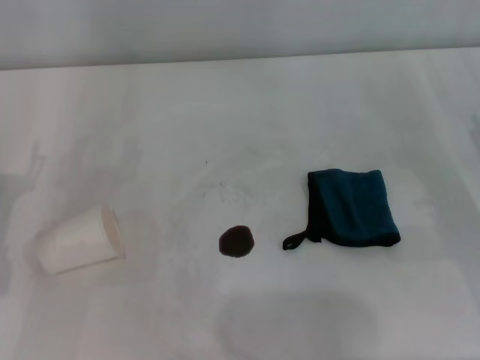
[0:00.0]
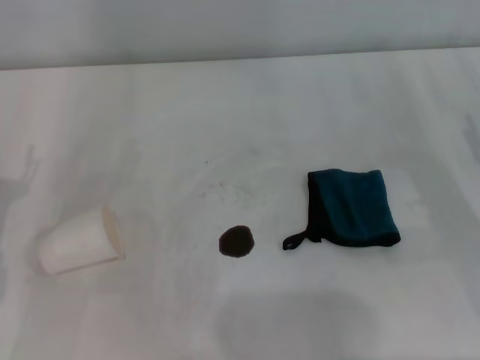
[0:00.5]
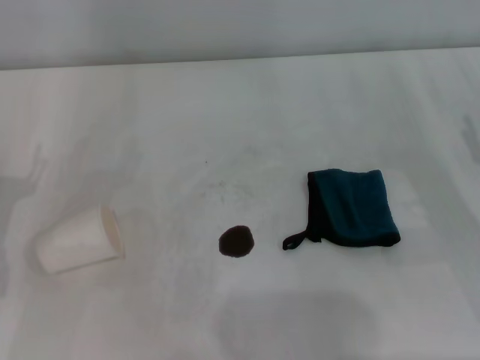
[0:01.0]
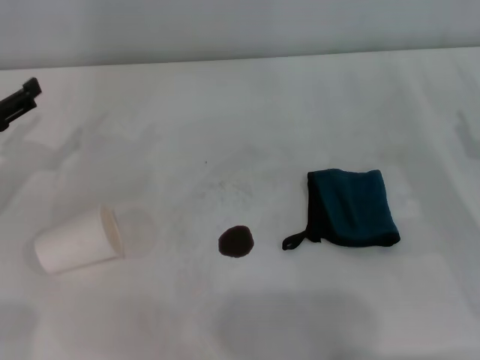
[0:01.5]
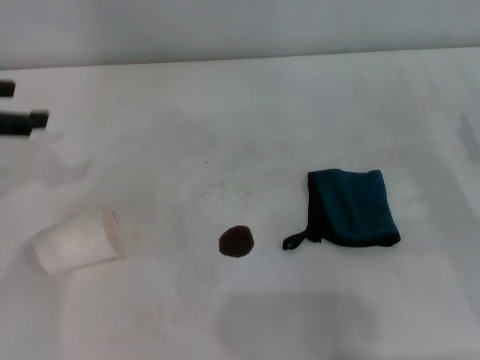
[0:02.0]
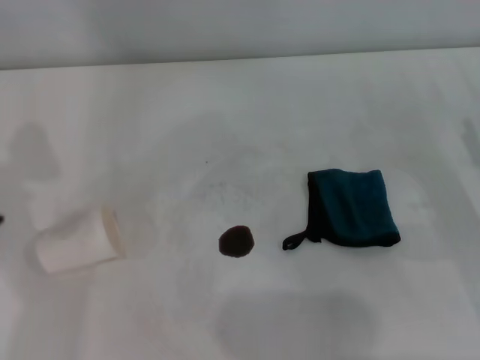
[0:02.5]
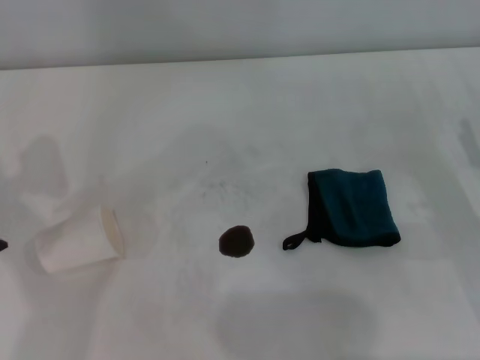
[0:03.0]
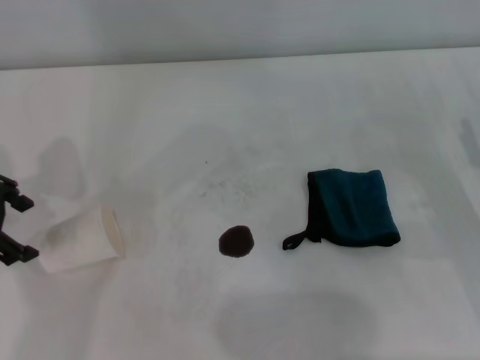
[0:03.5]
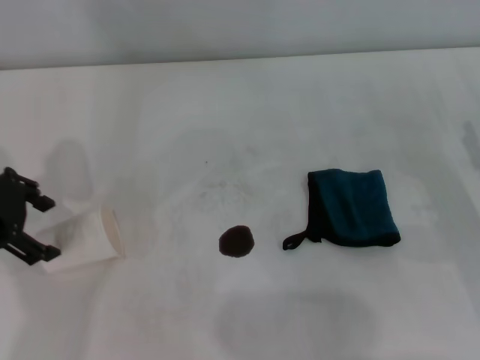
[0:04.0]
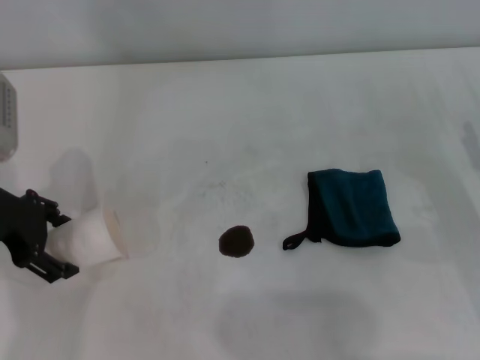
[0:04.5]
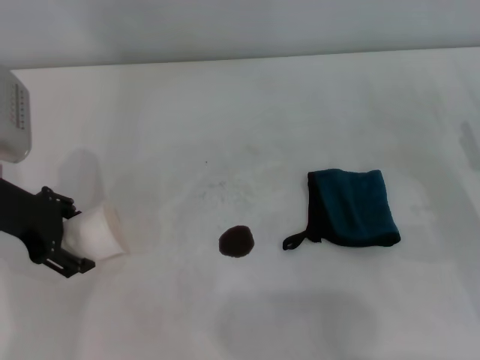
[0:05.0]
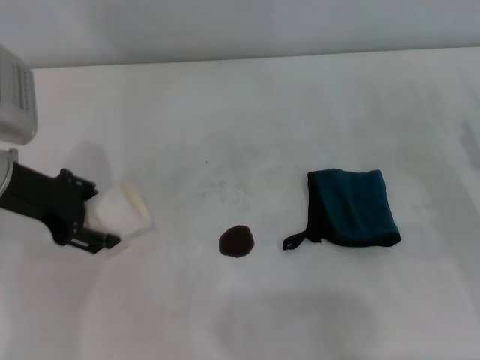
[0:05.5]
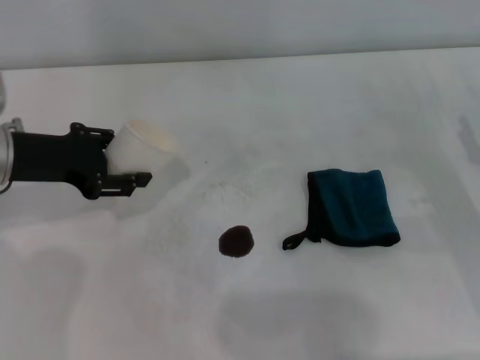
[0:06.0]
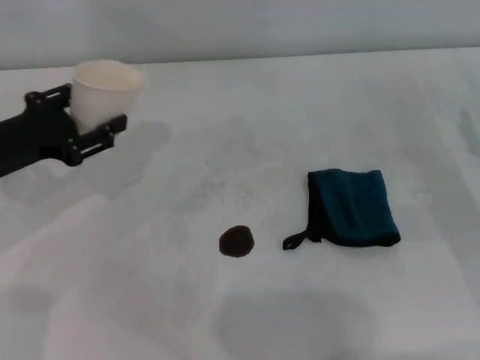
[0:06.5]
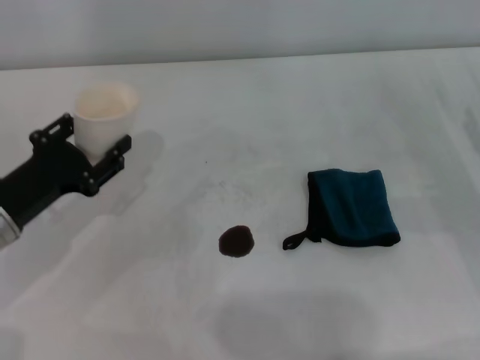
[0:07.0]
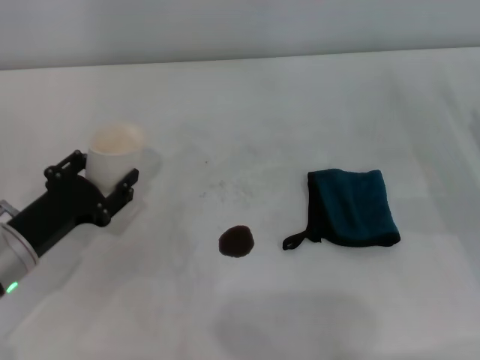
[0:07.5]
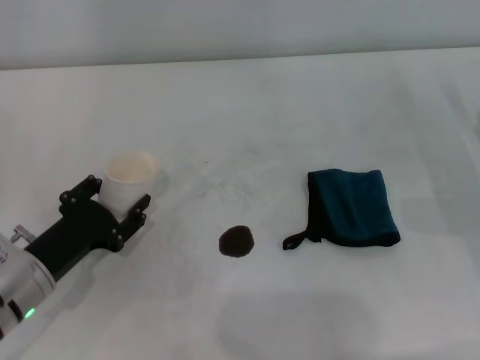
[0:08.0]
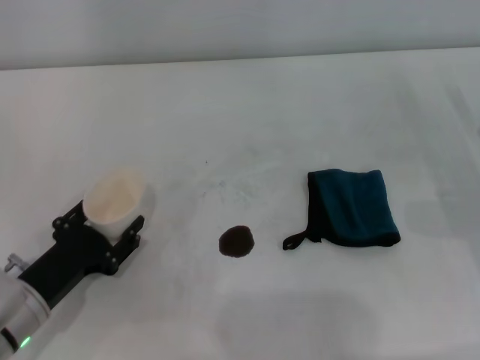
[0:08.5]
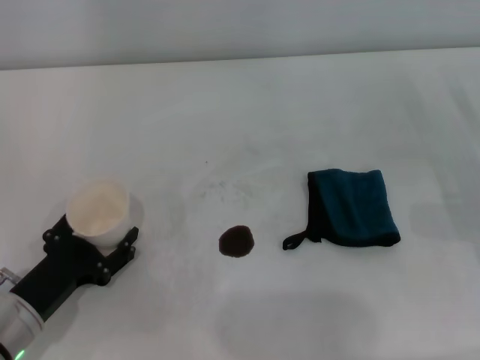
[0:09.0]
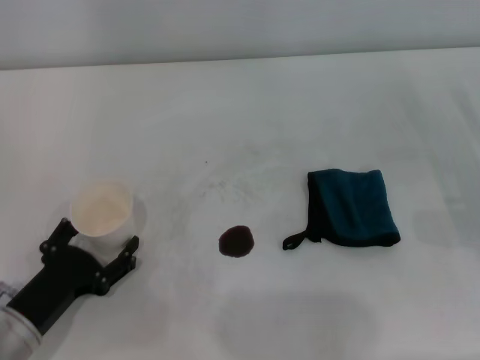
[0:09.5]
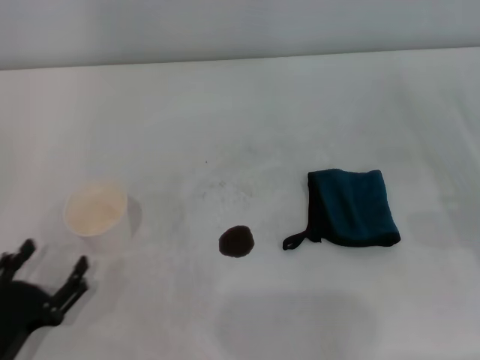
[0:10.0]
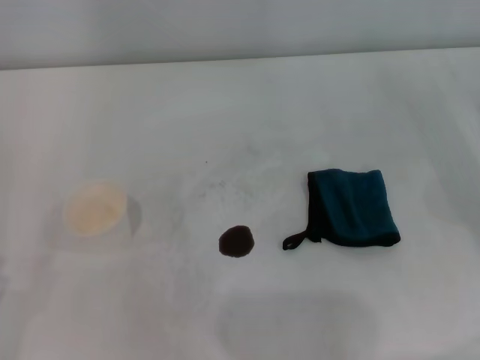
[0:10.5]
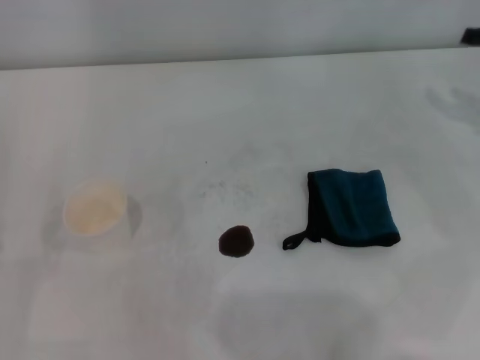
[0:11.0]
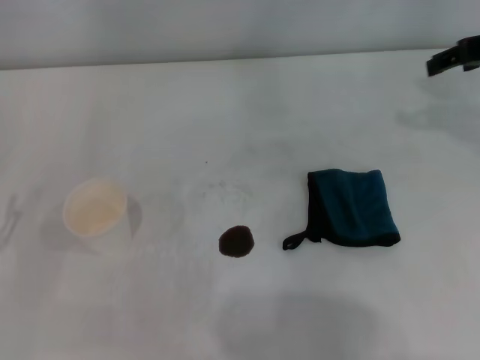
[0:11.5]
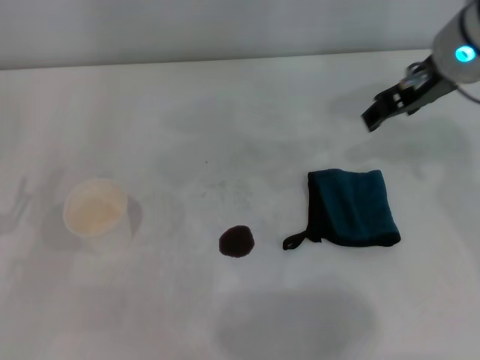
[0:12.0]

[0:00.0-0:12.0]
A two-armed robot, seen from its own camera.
Step, 0:00.0 to 0:04.5: Grasp the paper cup with the left gripper.
Step, 0:05.5 to 0:09.0: Stand the paper cup upright with the left gripper.
0:00.0 to 0:02.0: The left gripper is displaced upward and forward by approximately 20 cm.
0:02.0 to 0:04.0: The left gripper heads to the right, covering about 5 cm.
0:04.0 to 0:06.0: The left gripper closes.
0:06.0 to 0:08.0: The left gripper heads downward and backward, covering roughly 15 cm.
0:08.0 to 0:10.0: The left gripper is displaced backward by roughly 10 cm, and opens its fingers.
0:10.0 to 0:12.0: The right gripper moves to the left, upward and forward, some 30 cm, while the left gripper travels forward and upward by roughly 10 cm.

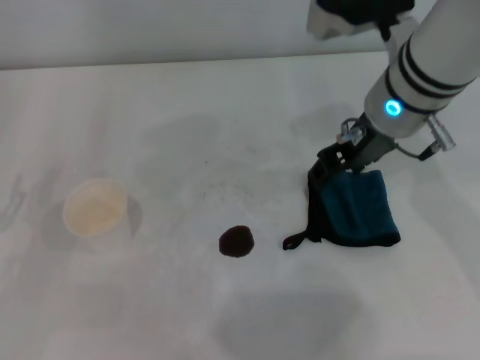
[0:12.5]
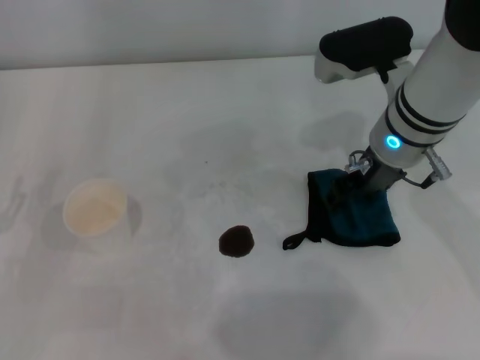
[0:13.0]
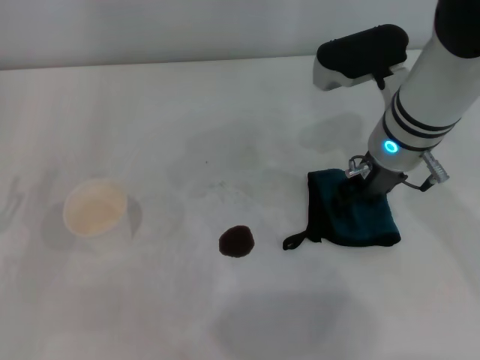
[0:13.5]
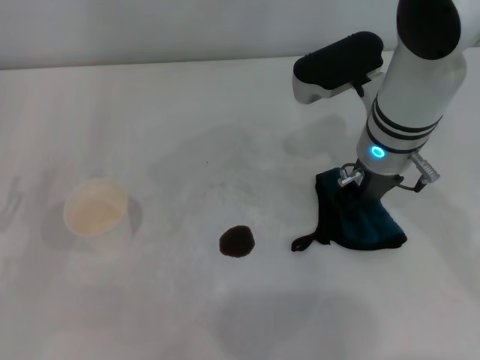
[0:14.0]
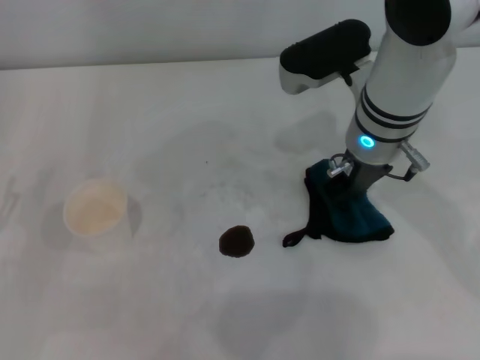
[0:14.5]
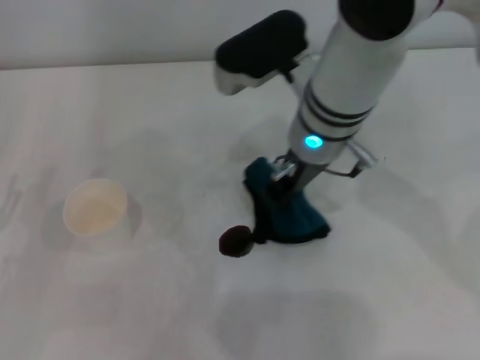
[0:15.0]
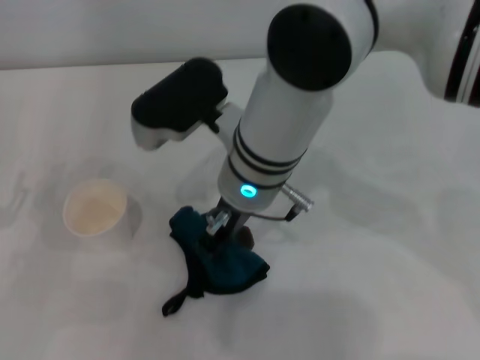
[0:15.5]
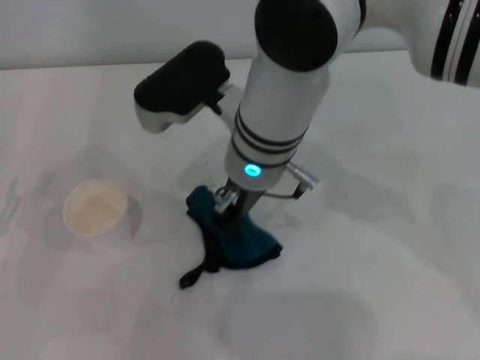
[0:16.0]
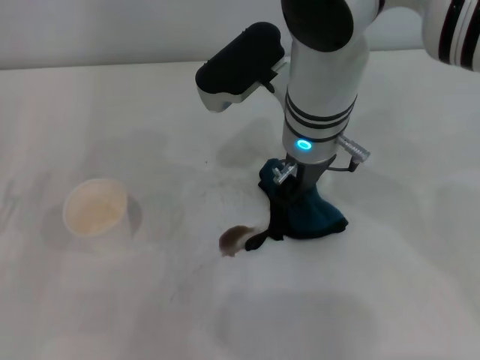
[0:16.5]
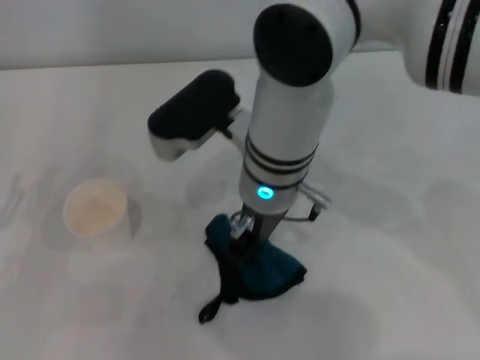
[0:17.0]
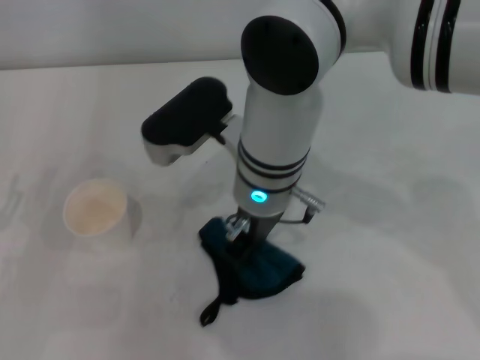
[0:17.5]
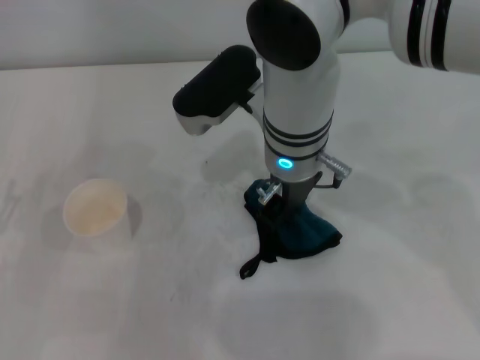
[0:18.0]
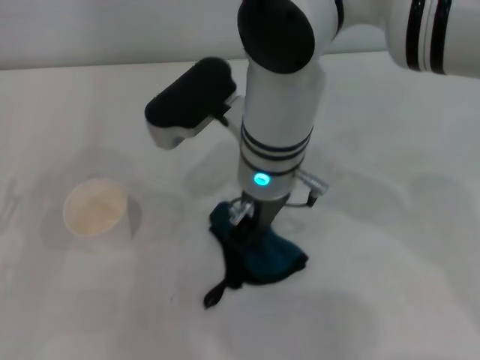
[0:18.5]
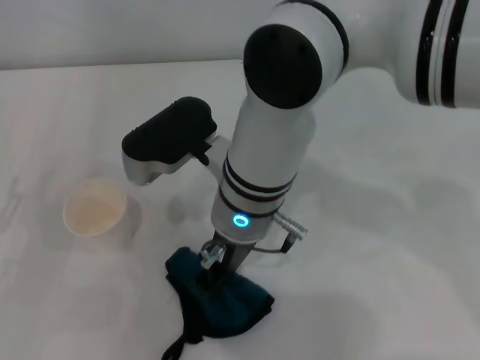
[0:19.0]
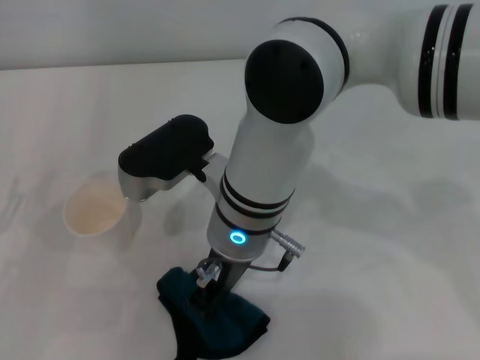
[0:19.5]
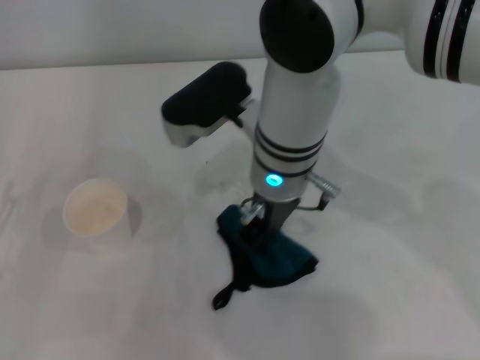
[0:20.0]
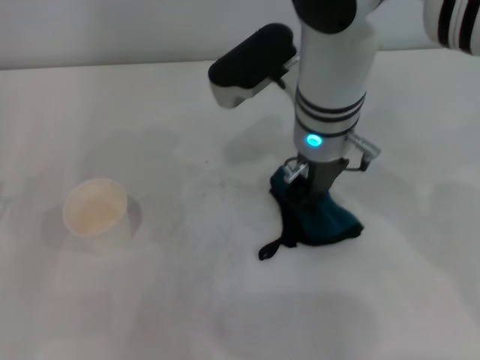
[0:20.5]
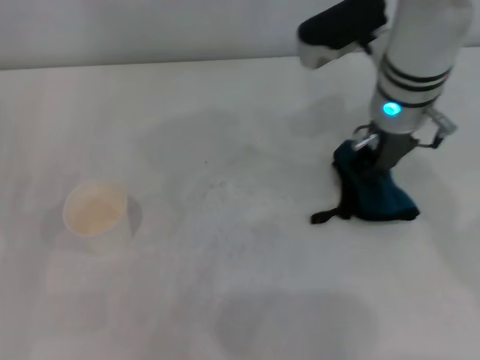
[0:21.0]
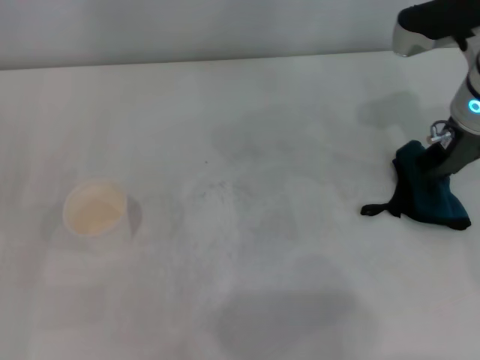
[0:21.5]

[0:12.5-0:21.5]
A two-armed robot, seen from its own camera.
Step, 0:14.5 to 0:21.0: Wipe the stains off the table with the right gripper.
0:12.5 to 0:14.5: The right gripper closes its fingers.
0:14.5 to 0:17.0: The right gripper goes left and right, about 10 cm each way, reversing 2 times.
0:19.5 to 0:21.5: The right gripper goes some 25 cm to the right.

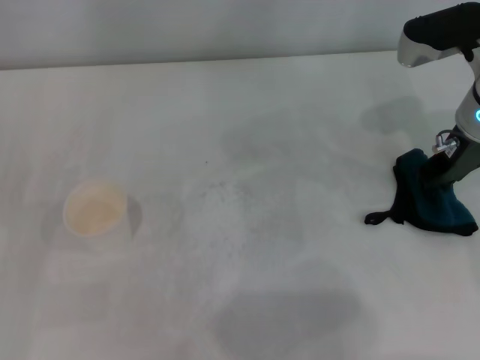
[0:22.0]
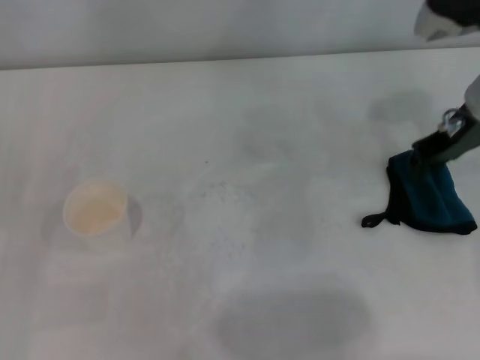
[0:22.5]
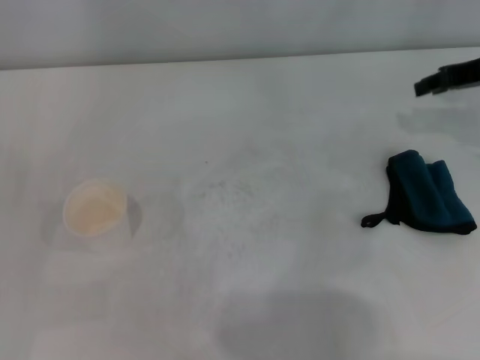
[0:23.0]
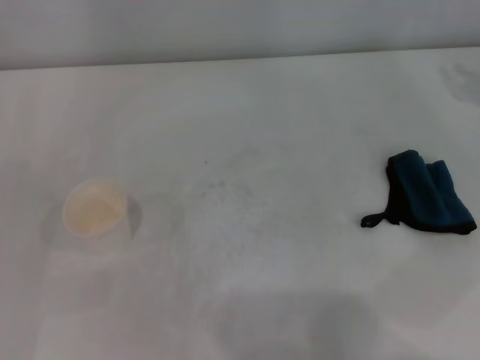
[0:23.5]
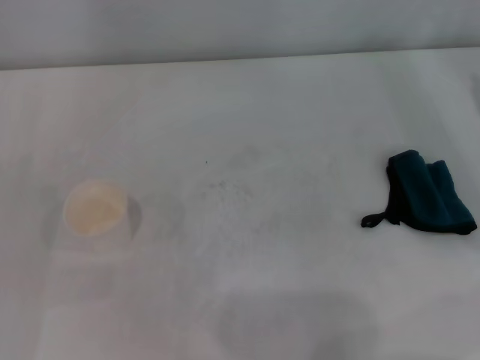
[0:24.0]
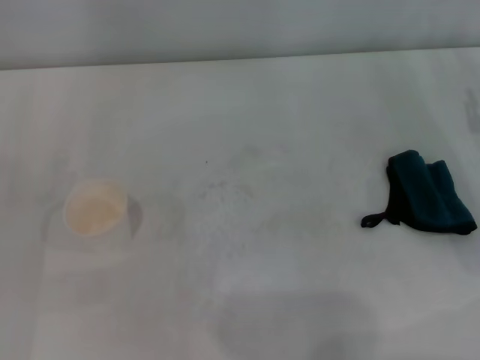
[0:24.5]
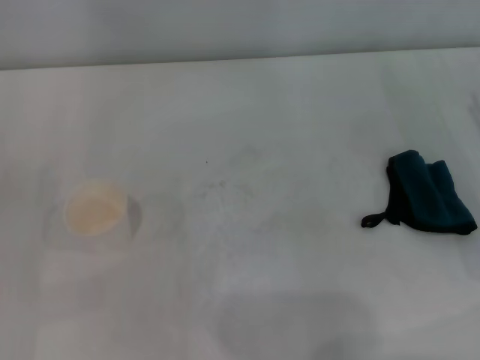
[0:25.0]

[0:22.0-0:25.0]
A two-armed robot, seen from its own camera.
0:22.0 to 0:23.5: The right gripper heads to the right, covering roughly 15 cm, and opens its fingers.
